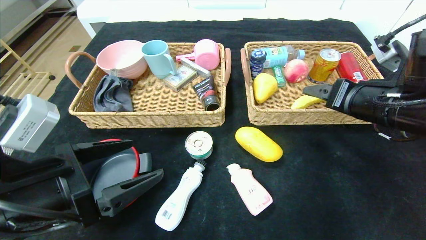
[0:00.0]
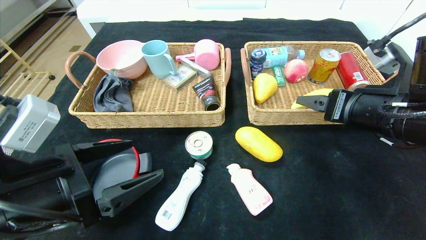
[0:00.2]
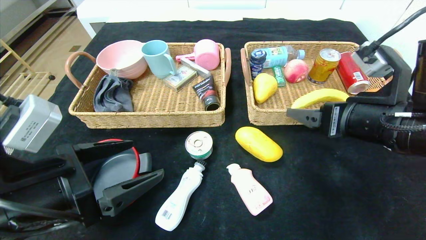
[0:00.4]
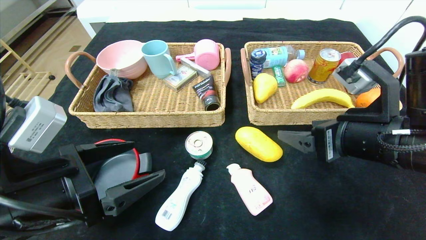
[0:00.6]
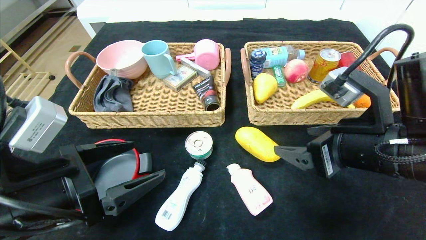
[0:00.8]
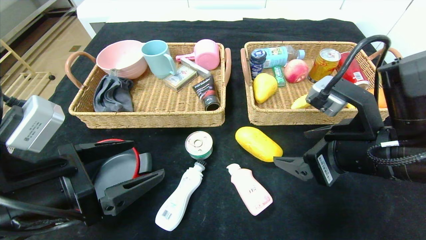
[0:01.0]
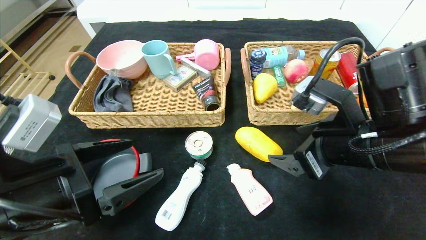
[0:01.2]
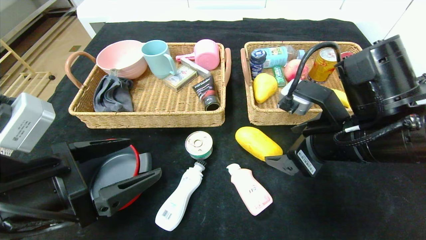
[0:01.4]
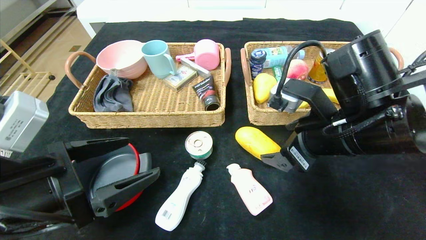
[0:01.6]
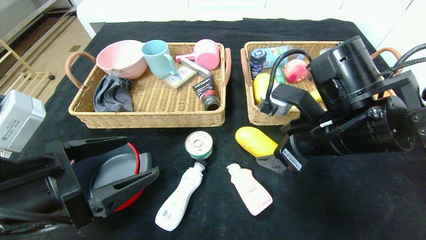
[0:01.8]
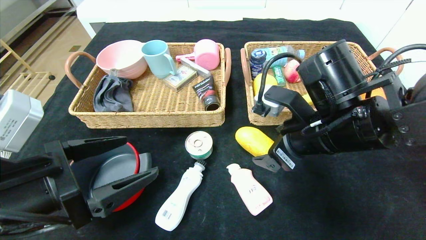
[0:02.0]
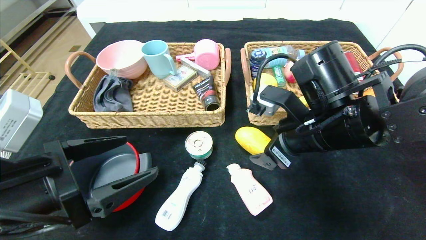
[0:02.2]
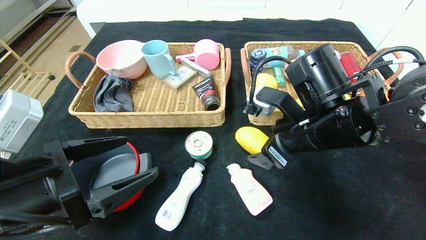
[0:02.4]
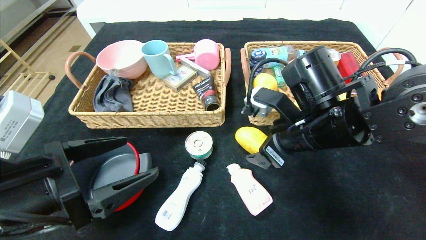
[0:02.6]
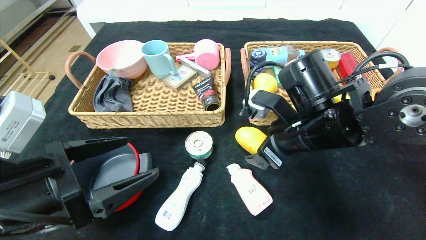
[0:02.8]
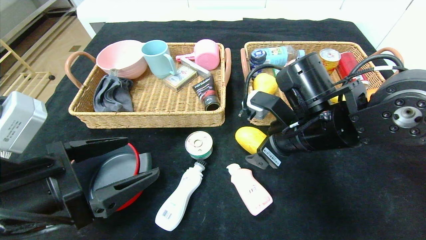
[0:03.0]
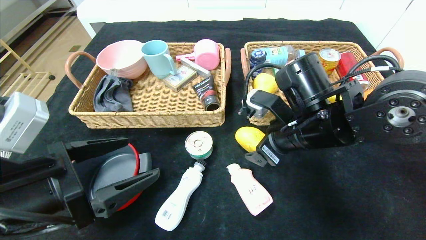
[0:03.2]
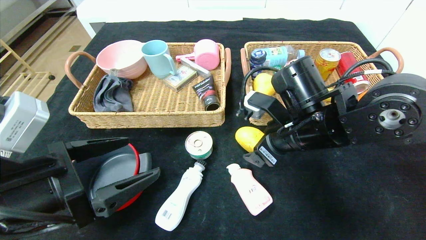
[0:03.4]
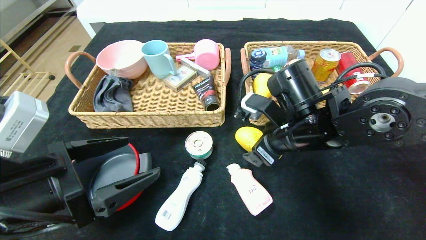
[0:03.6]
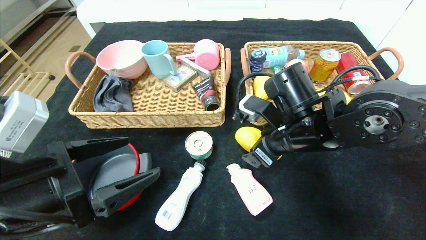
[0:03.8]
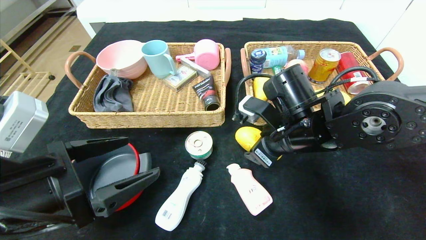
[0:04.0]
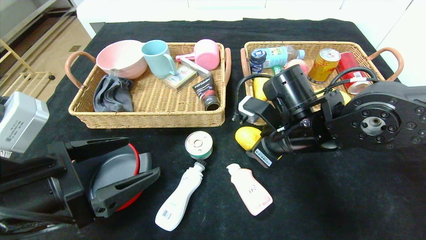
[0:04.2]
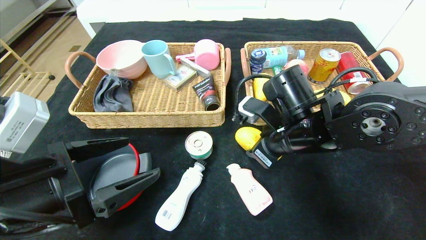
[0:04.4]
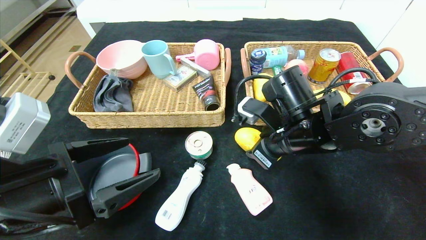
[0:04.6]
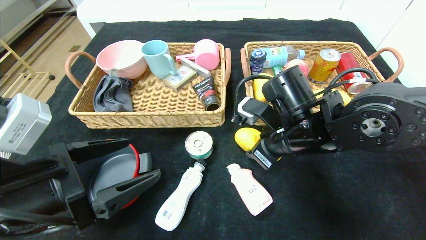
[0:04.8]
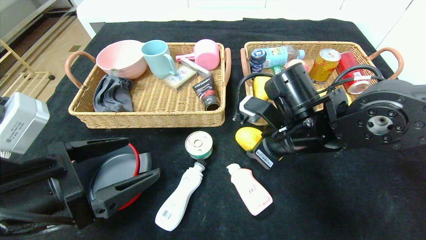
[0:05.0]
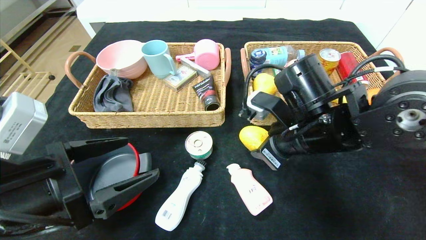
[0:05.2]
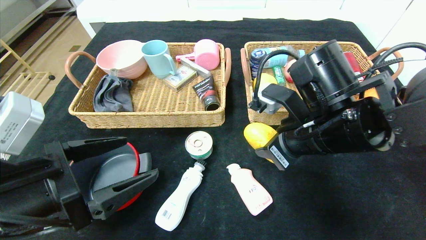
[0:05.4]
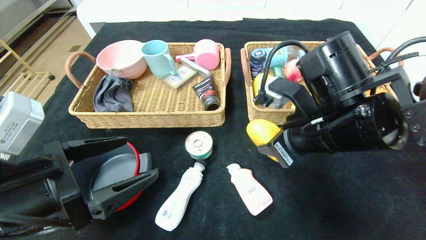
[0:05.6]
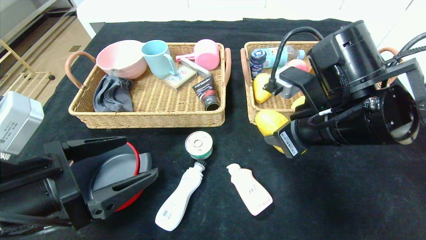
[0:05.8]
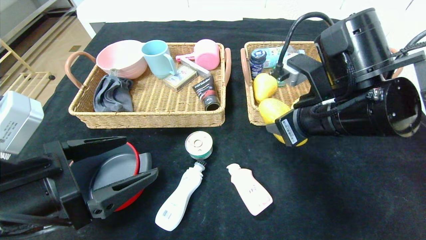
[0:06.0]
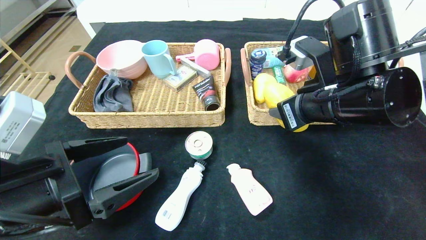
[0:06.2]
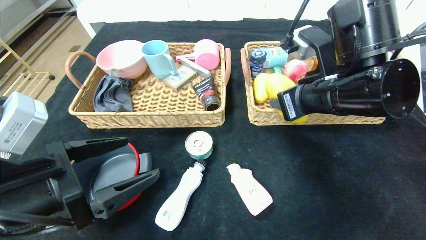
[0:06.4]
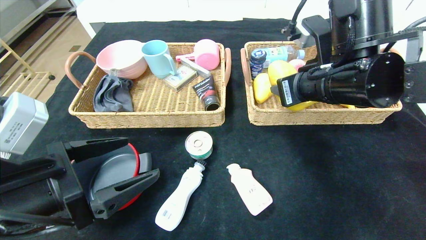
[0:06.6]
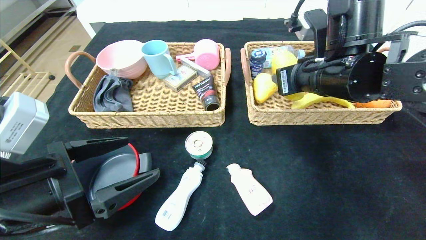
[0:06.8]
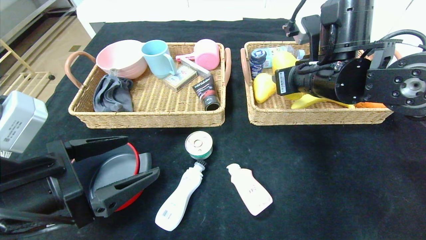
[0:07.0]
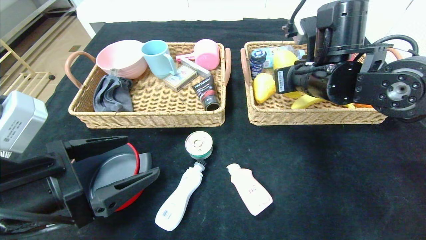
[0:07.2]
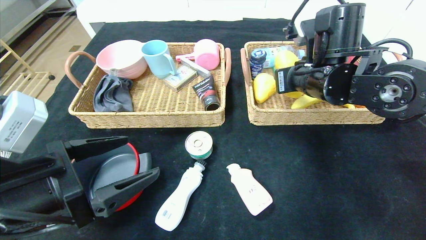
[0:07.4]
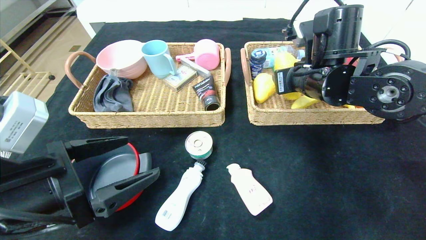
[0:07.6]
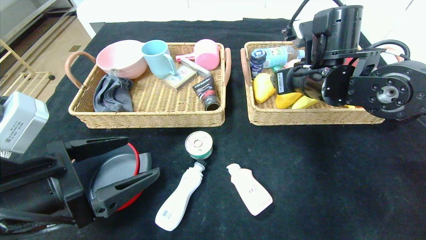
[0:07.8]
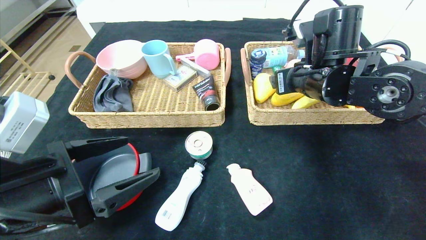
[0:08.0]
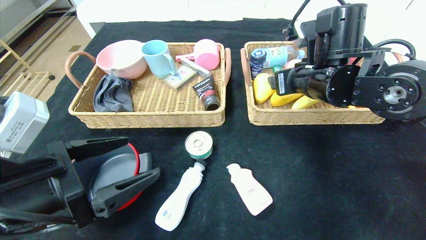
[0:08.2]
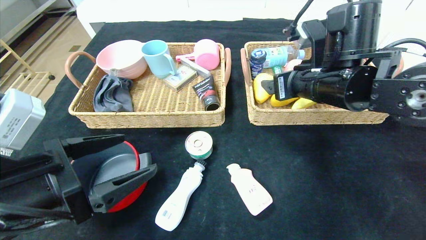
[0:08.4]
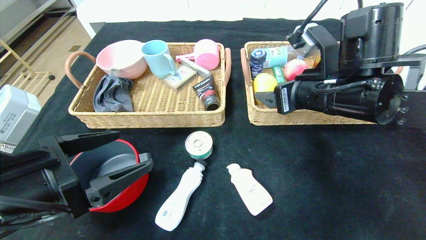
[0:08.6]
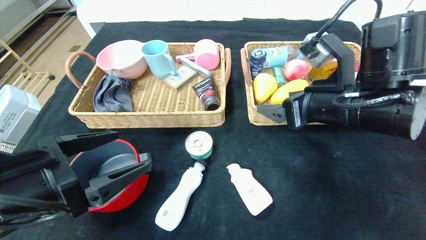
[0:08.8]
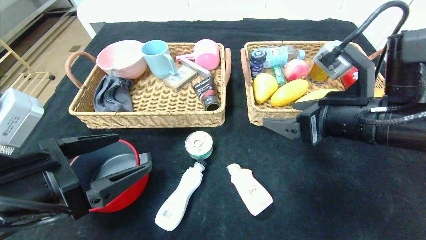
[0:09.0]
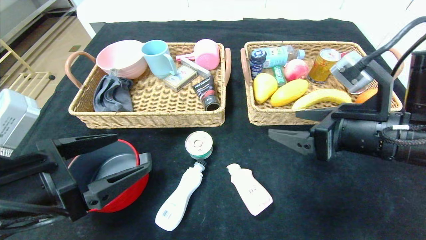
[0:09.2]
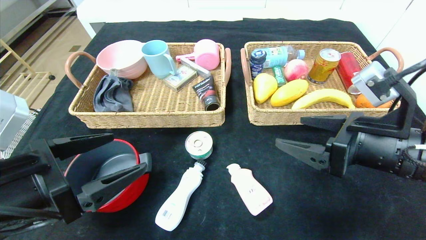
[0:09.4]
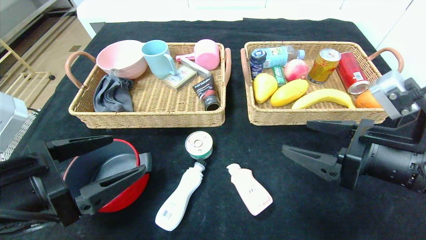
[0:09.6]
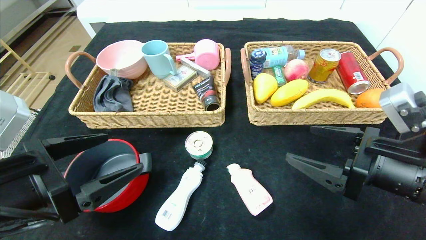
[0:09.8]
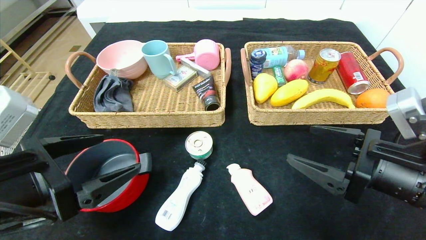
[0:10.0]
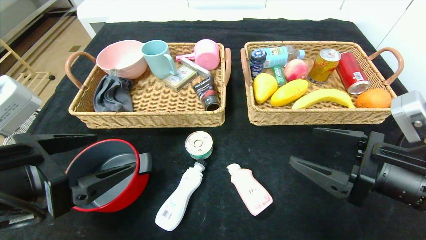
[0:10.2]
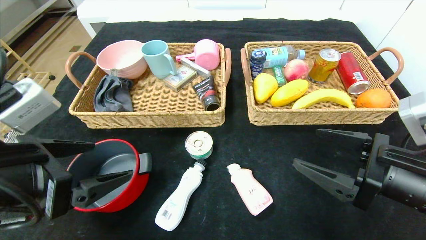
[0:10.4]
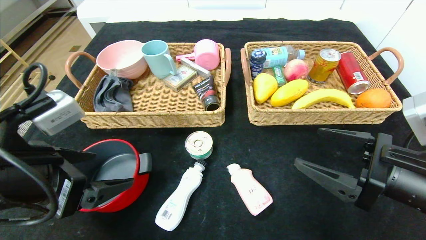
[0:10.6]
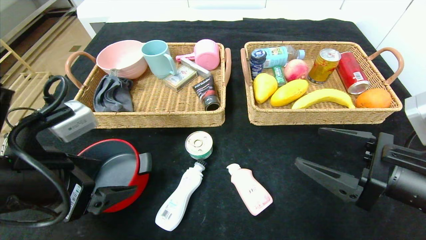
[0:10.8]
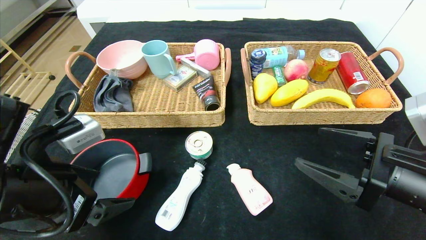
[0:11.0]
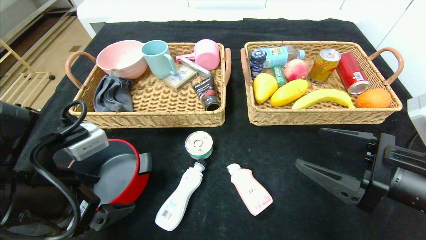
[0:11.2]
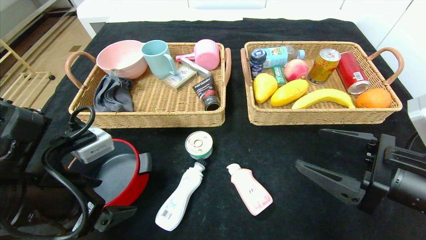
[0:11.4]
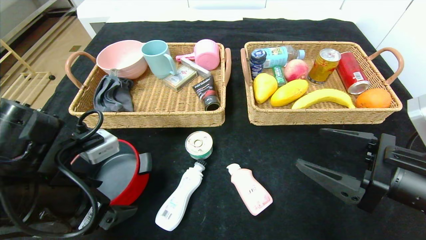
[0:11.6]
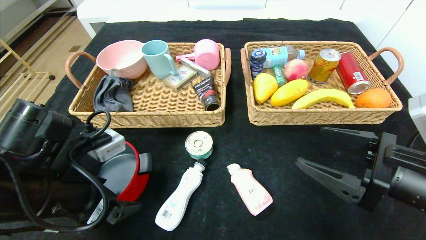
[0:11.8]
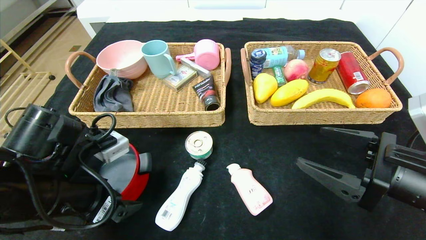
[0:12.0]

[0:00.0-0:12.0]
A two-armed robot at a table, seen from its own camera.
Step, 0:00.0 to 0:07.8: Grasp the mango and put it in the right basket.
0:00.0 to 0:01.6: The right gripper moves to the left, roughly 10 cm.
0:01.6 to 0:03.0: The right gripper moves approximately 5 cm.
0:03.0 to 0:04.4: The right gripper closes.
0:04.4 to 0:06.0: The right gripper travels upward by about 5 cm.
0:06.0 to 0:07.6: The right gripper travels forward by some 10 cm.
0:07.6 to 0:09.0: The right gripper moves backward, about 10 cm, and opens up.
0:09.0 to 0:10.4: The right gripper goes approximately 10 cm backward and downward.
0:10.4 to 0:12.0: The left gripper heads downward, covering roughly 5 cm.

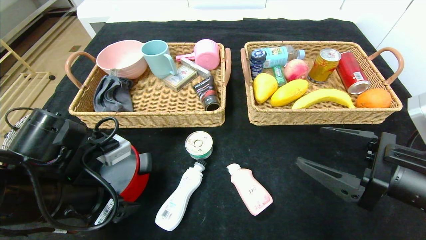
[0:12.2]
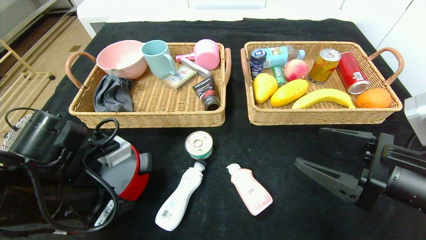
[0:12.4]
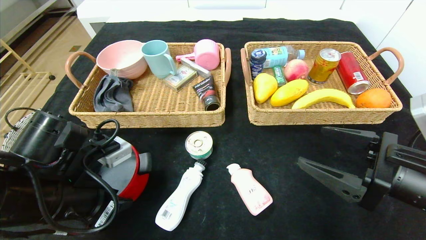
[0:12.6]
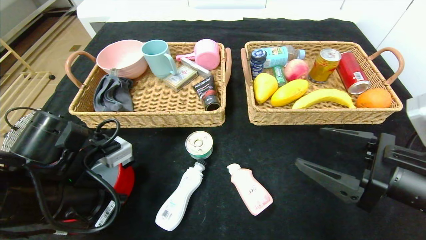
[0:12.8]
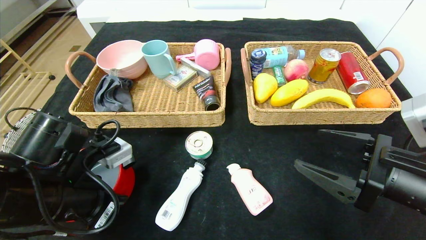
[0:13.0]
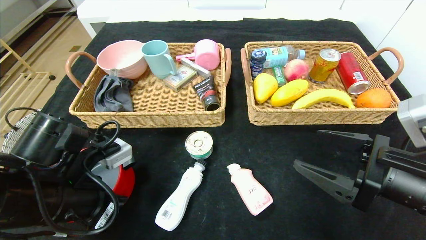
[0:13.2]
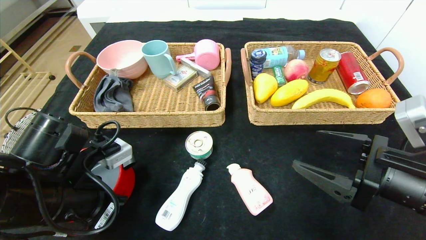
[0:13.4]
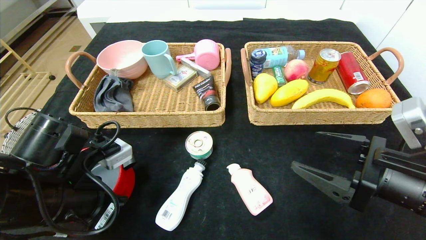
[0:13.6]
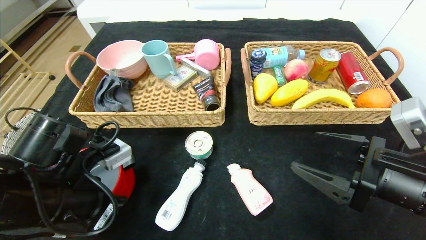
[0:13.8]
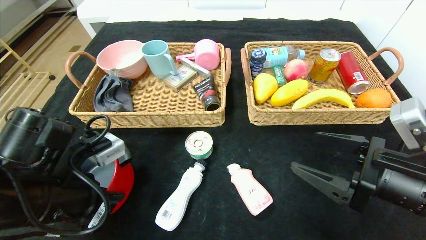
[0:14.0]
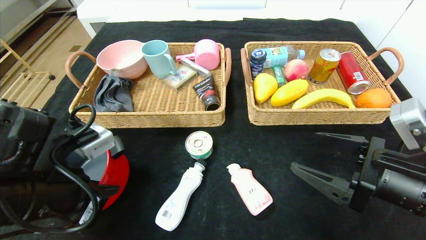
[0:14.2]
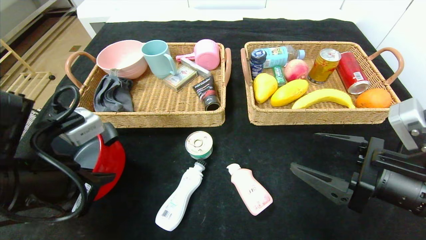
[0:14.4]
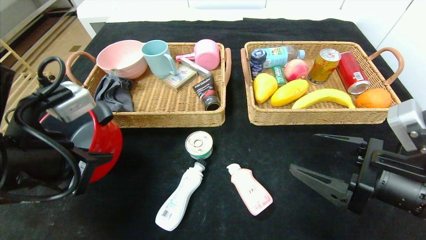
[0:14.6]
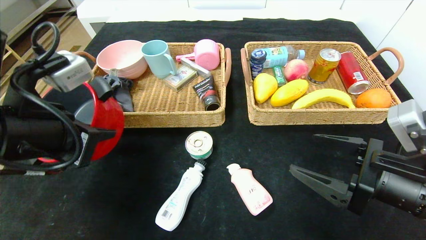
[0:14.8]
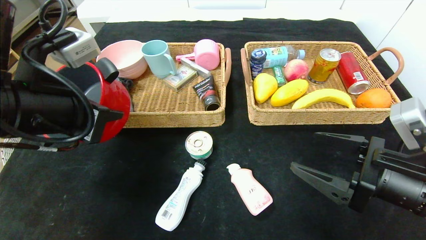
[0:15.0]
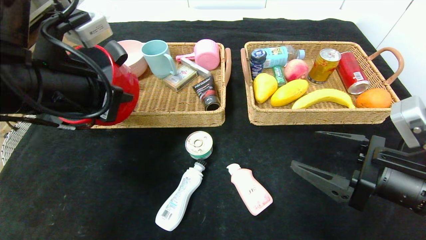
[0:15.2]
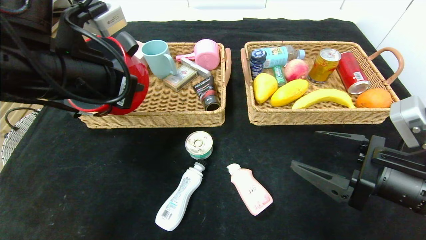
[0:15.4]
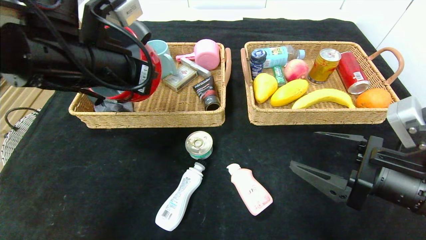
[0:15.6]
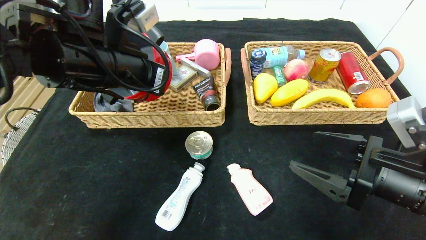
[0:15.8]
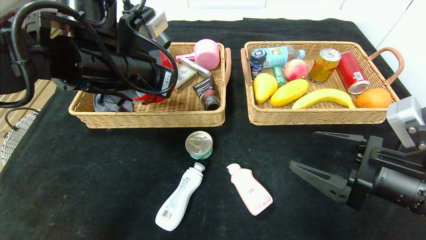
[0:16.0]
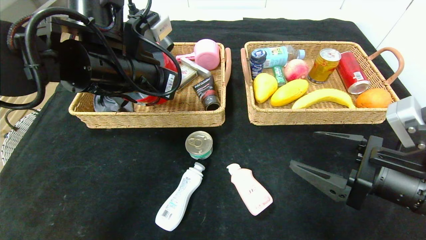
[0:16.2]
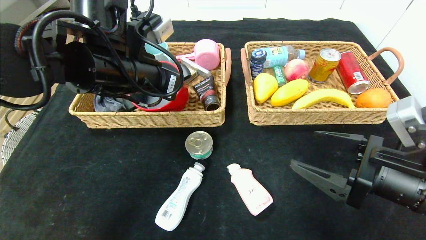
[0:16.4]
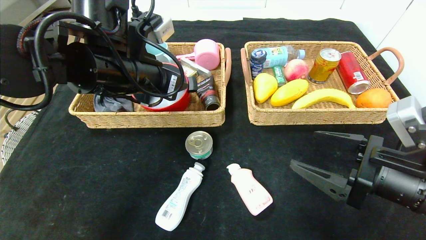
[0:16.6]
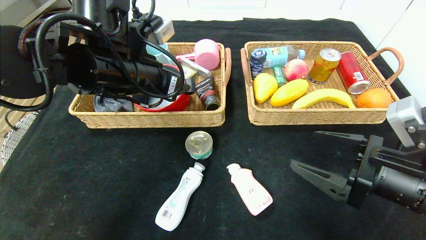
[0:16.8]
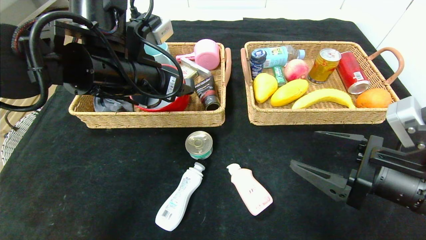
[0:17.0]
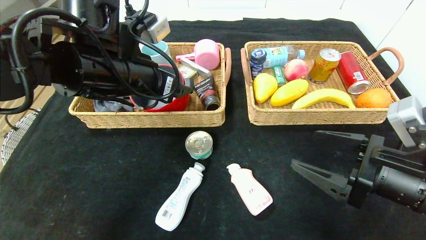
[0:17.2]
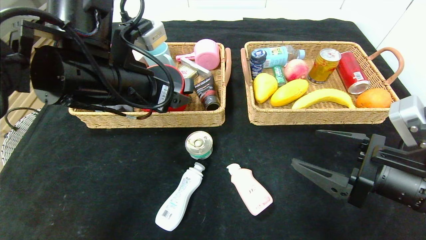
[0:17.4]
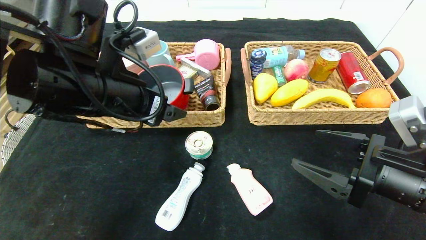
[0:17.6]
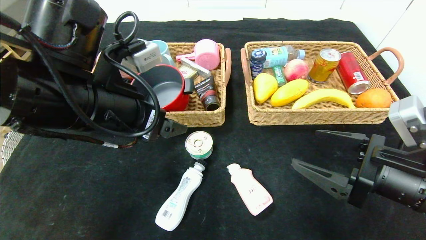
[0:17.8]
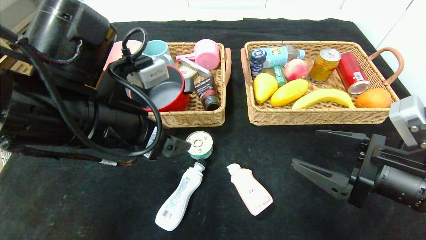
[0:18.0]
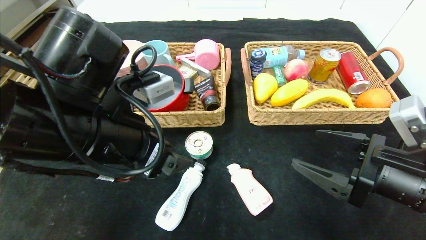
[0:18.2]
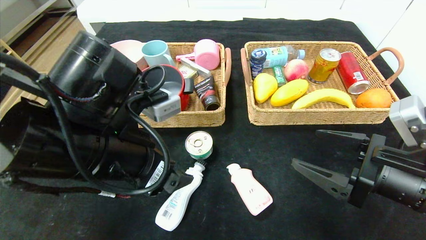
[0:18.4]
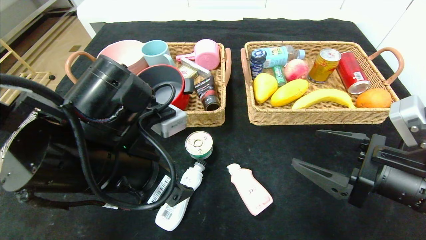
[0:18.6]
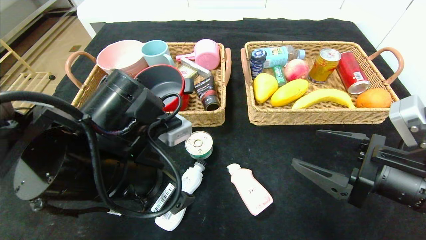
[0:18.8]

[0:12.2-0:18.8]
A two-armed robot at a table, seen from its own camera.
Step, 0:12.2 to 0:17.0: Grasp the red pot and put it in the left basket.
0:12.2 to 0:13.8: The left gripper closes its fingers.
0:13.8 to 0:15.4: The left gripper is displaced upward and forward by roughly 15 cm.
0:15.4 to 0:17.2: The left gripper shifts by some 5 cm, and opens up.
0:17.2 to 0:18.8: The left gripper shifts approximately 10 cm backward and downward.
